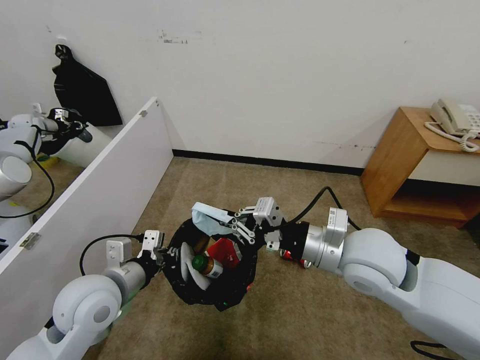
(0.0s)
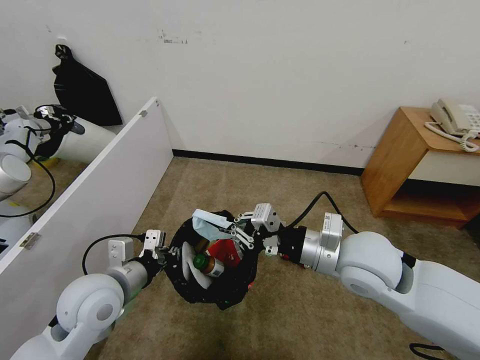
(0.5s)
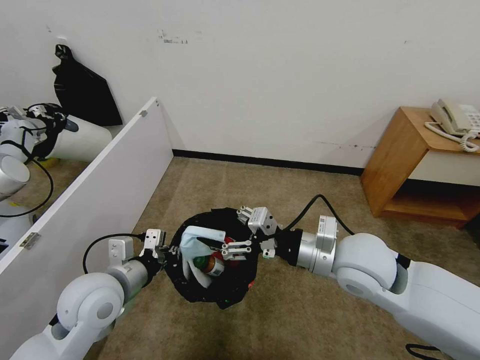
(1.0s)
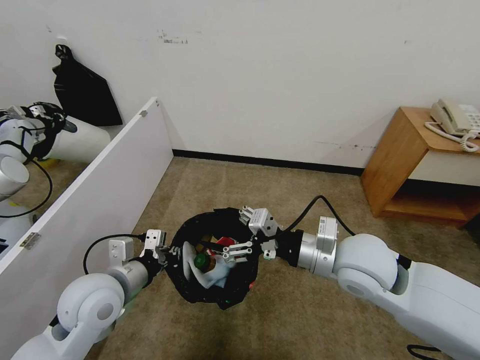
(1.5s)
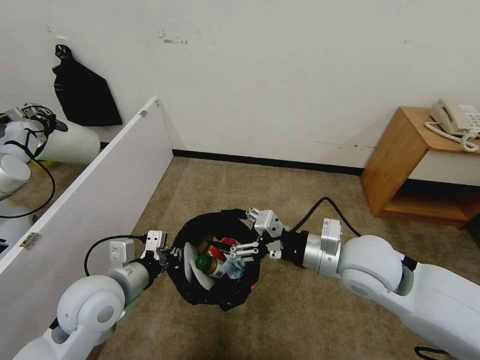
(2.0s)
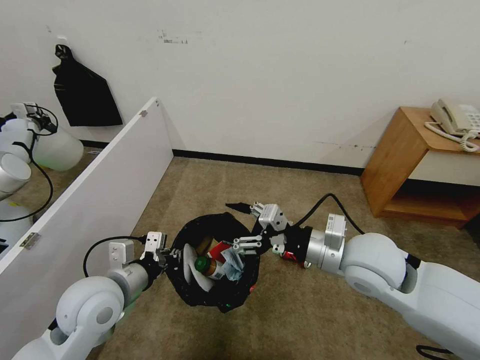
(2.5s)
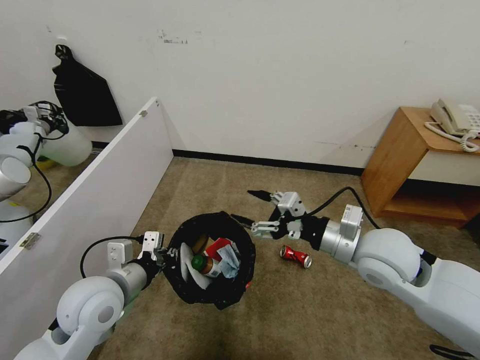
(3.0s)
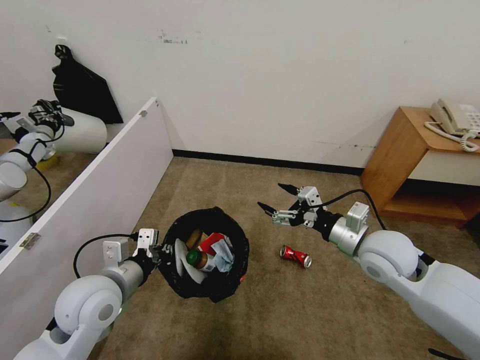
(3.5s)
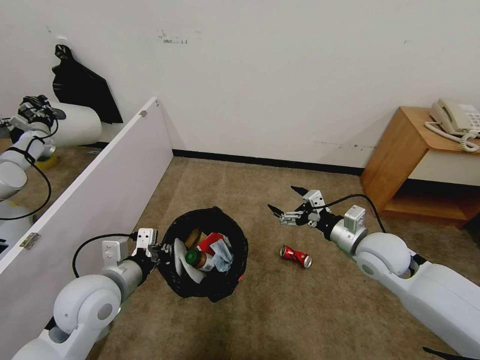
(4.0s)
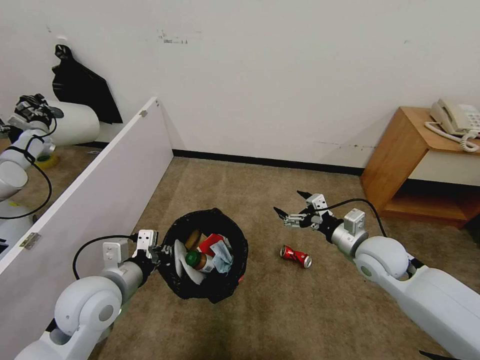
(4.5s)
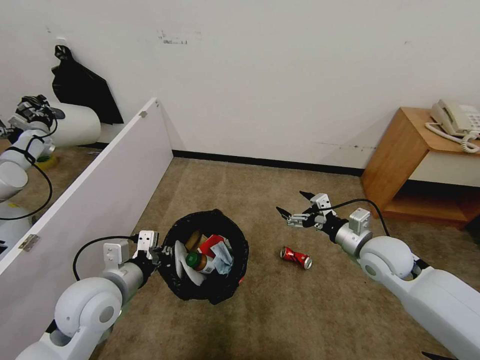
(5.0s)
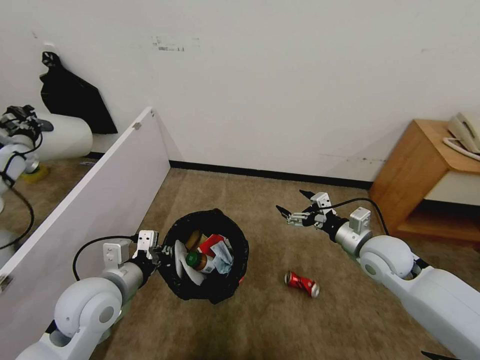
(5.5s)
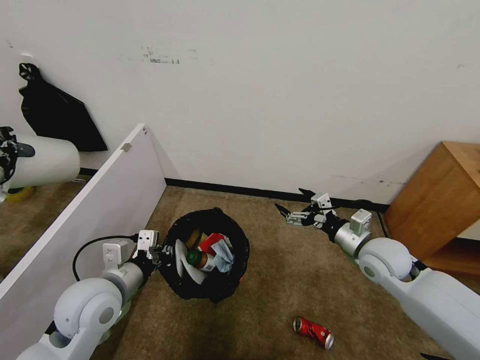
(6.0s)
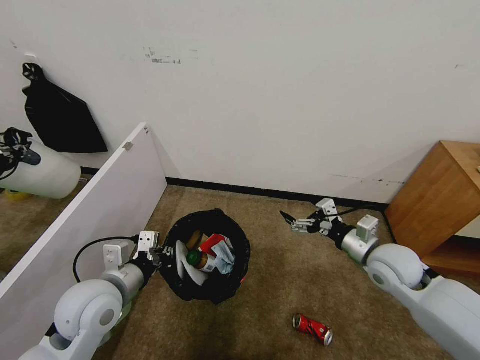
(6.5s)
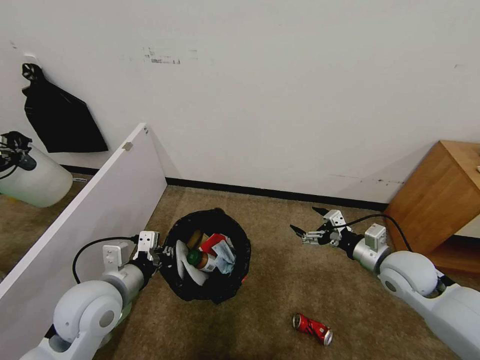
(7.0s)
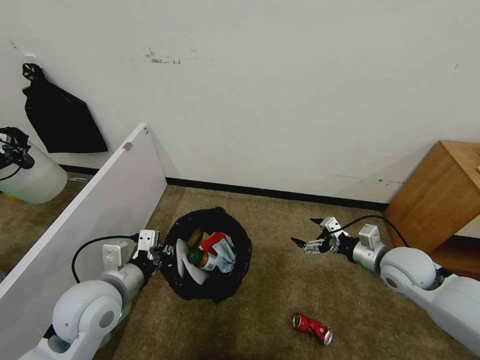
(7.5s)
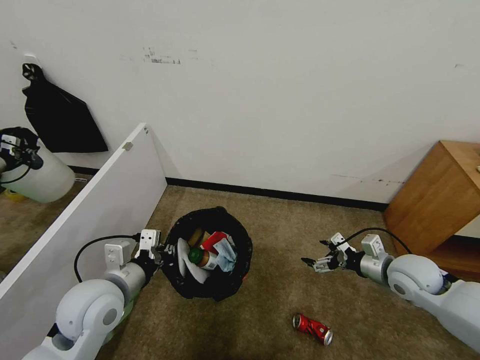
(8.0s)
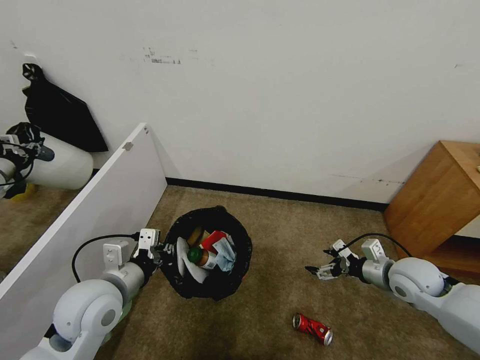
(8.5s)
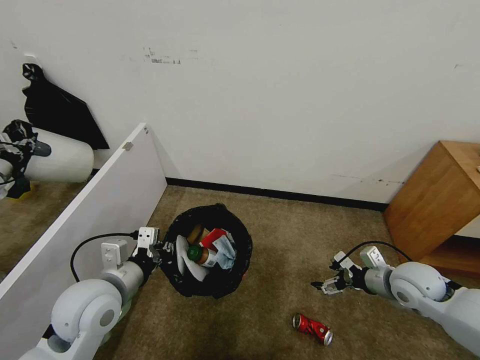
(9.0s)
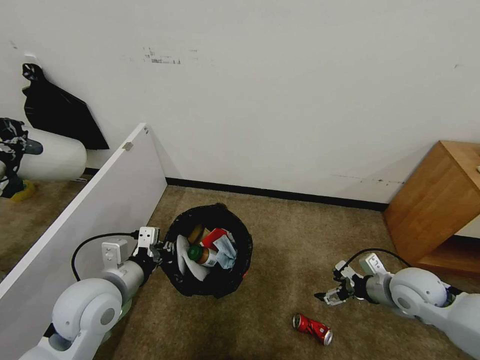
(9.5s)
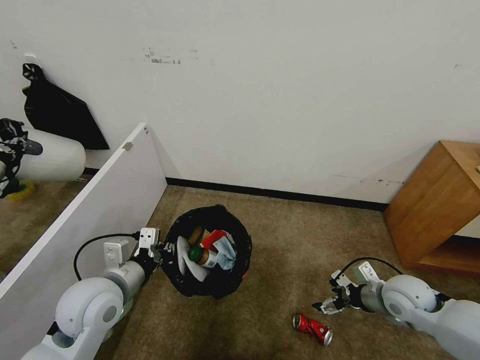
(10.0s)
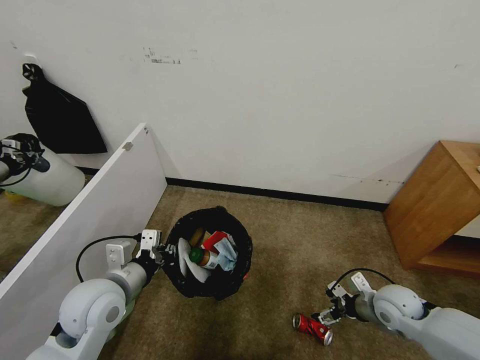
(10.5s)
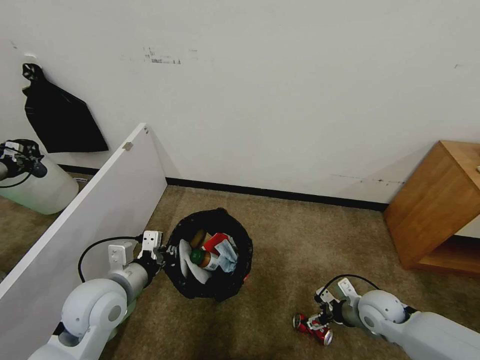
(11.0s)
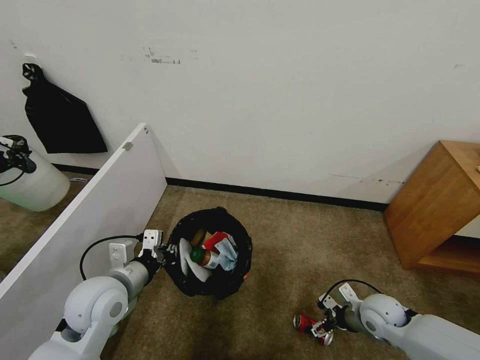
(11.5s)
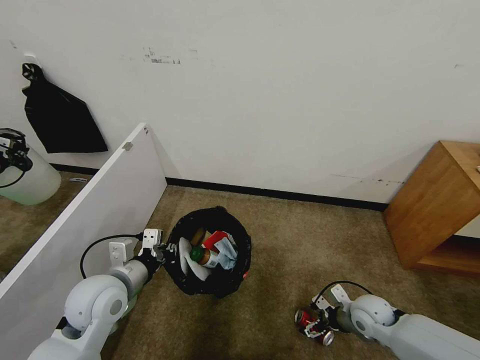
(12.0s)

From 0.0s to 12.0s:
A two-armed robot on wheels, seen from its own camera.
Task of the whole recording: Pick up the trash bin and place the garbage on the floor into it.
From 0.0s to 2.0s: The right gripper opens its fingers.
From 2.0s to 4.0s: The right gripper shifts approximately 15 cm to the right, downward and forward.
From 6.0s to 8.0s: The right gripper heads to the right, covering approximately 5 cm.
From 10.0s to 12.0s: The right gripper is displaced downward by approximately 10 cm.

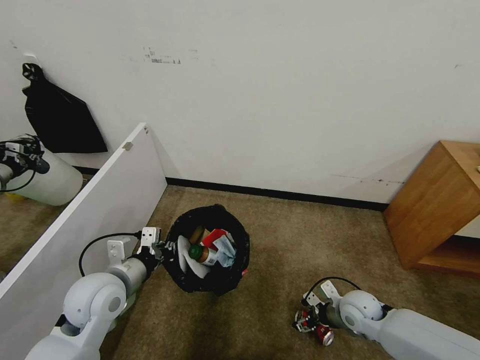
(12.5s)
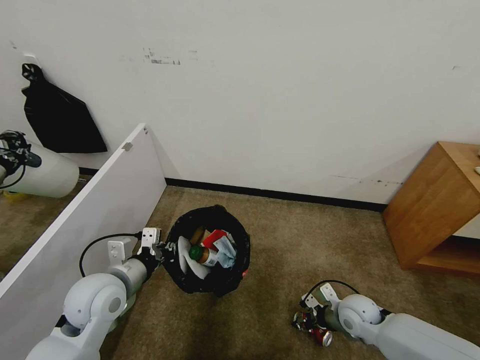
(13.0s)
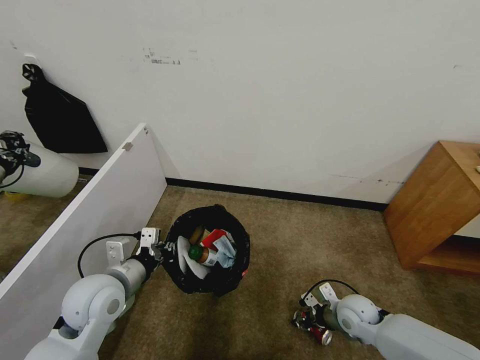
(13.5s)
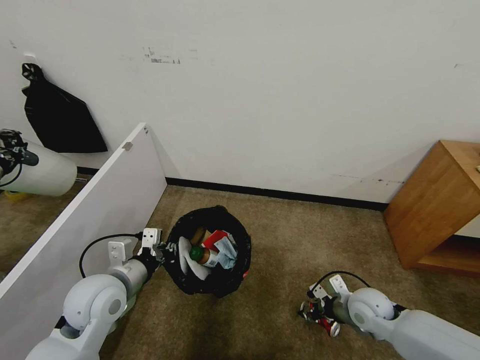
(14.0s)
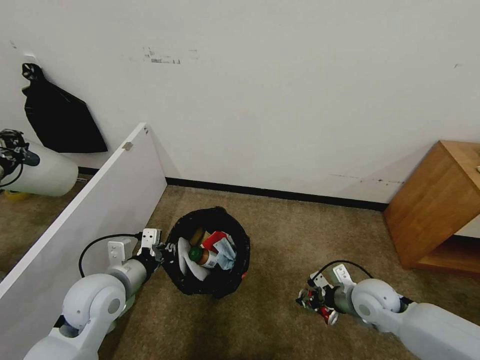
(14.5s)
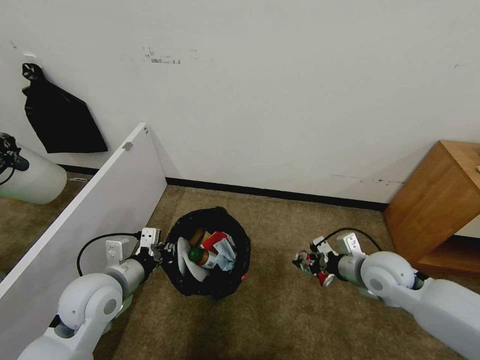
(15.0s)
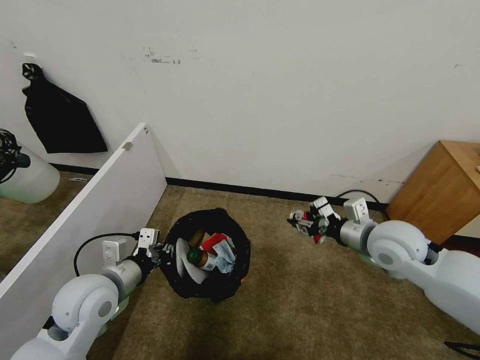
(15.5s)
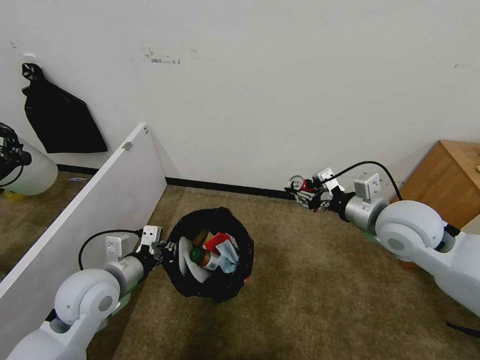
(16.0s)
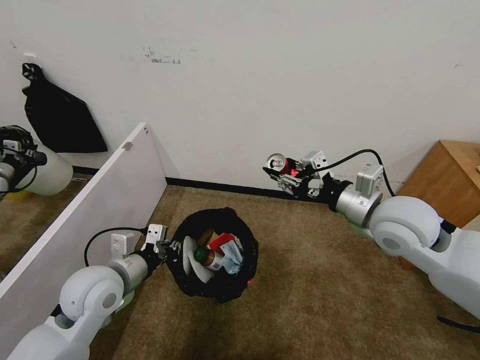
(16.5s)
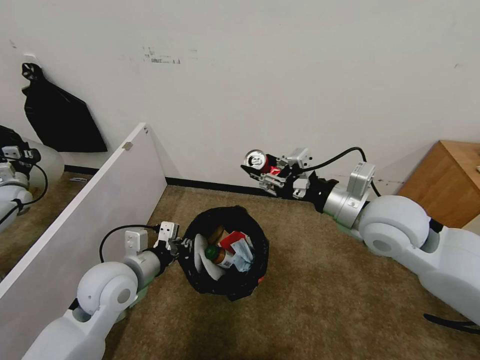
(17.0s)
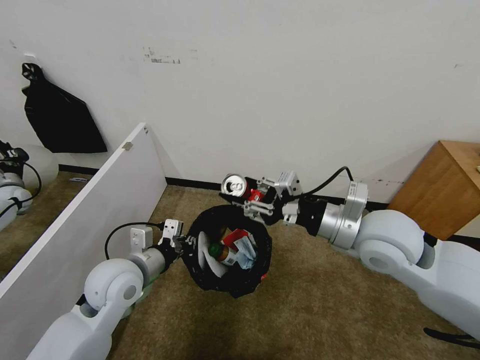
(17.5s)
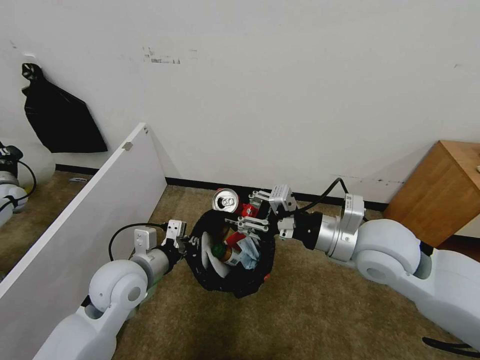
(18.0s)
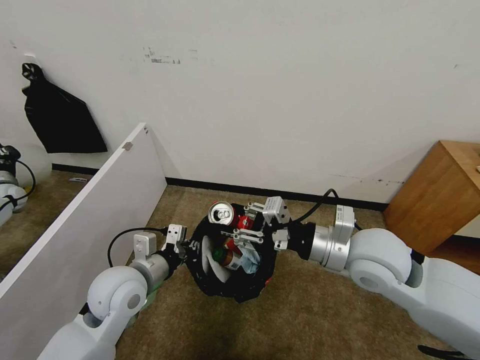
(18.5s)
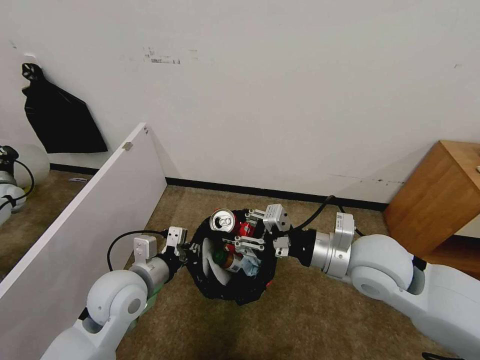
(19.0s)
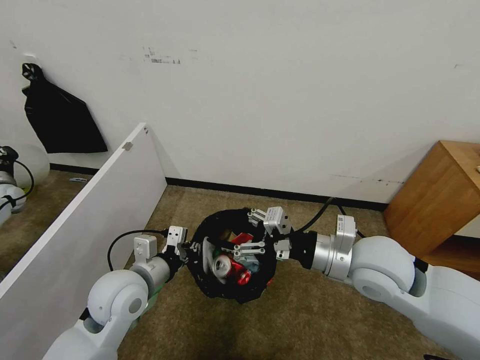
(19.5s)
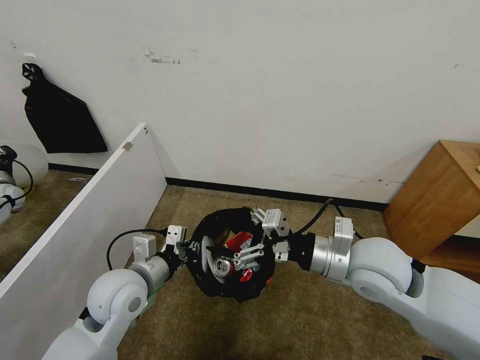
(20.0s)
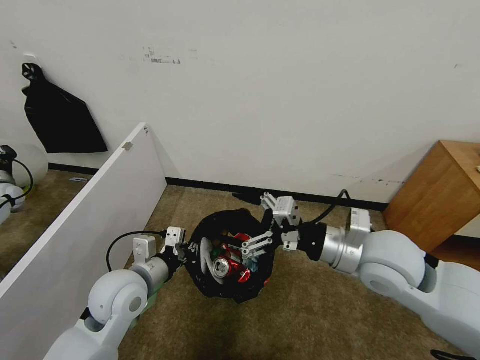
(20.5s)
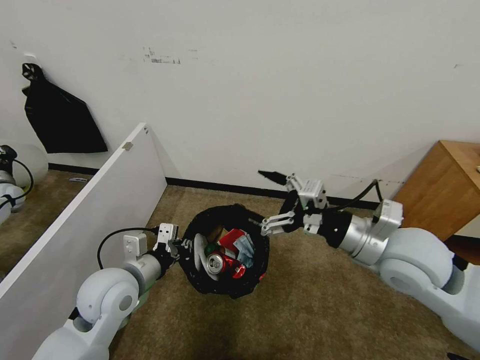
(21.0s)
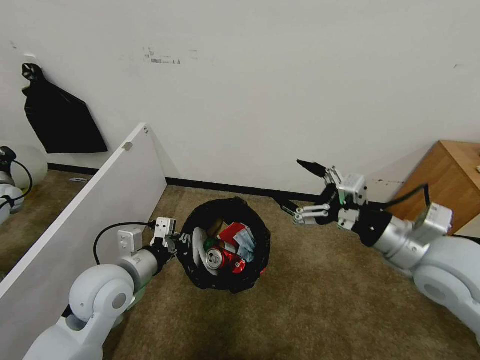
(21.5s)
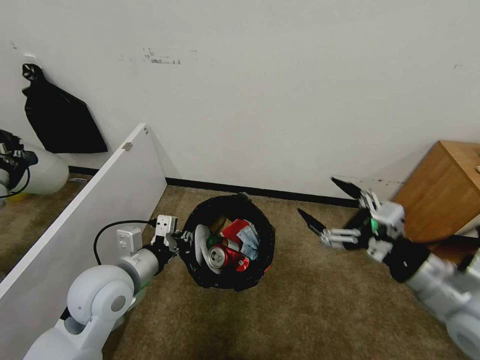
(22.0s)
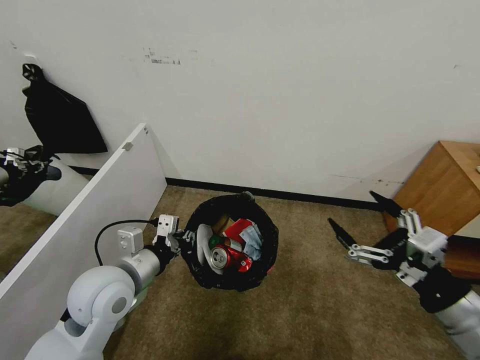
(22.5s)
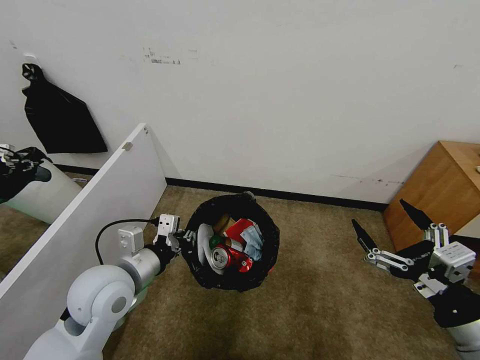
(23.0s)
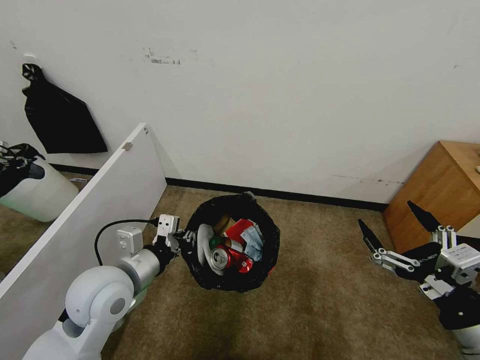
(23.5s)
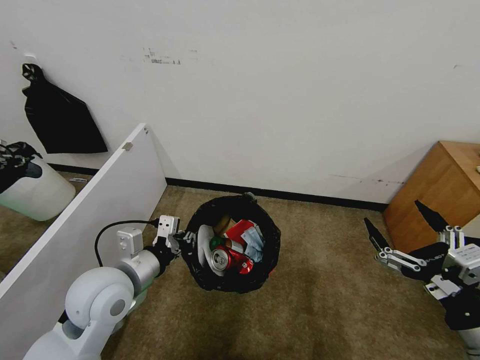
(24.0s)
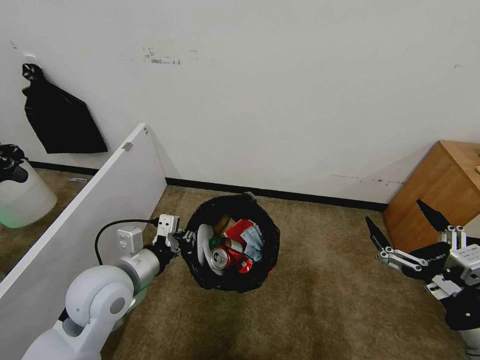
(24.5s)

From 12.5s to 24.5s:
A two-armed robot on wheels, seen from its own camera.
Task of the whole recording: Pick up the trash bin and place the garbage on the floor into it.
From 12.5s to 14.5s: The right gripper travels upward by approximately 10 cm, and closes.
From 14.5s to 16.5s: The right gripper travels upward by some 25 cm.
From 16.5s to 18.5s: The right gripper is displaced to the left by roughly 5 cm.
From 18.5s to 20.5s: The right gripper opens.
From 20.5s to 22.5s: The right gripper heads backward and to the right, covering roughly 20 cm.
From 22.5s to 24.5s: The grippers stay close to where they were, moving slightly.
